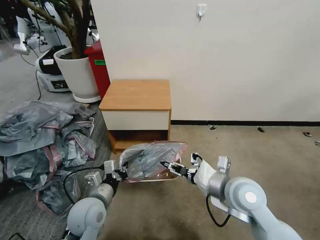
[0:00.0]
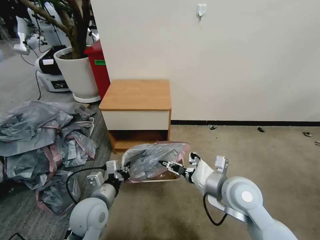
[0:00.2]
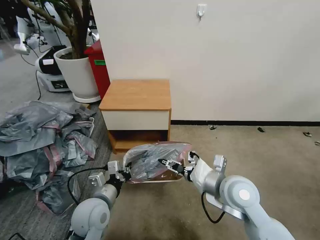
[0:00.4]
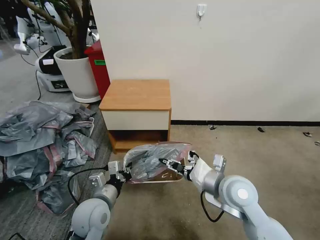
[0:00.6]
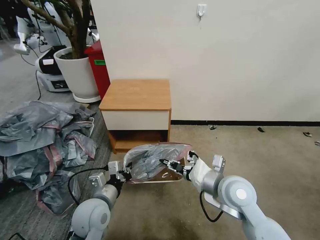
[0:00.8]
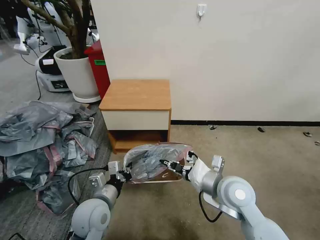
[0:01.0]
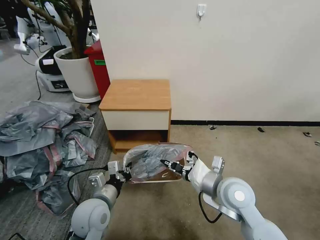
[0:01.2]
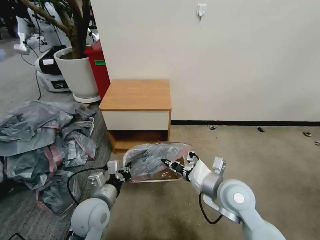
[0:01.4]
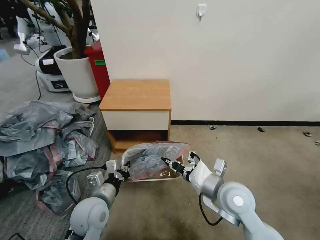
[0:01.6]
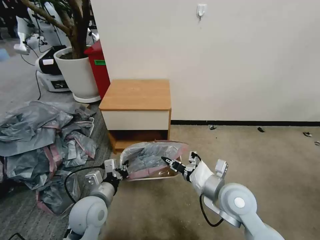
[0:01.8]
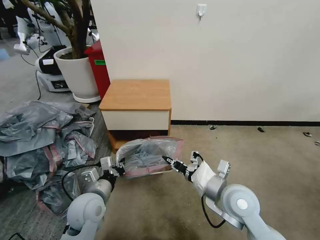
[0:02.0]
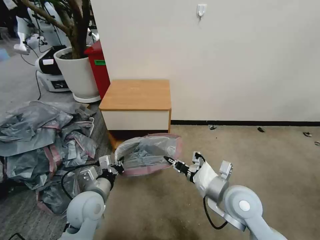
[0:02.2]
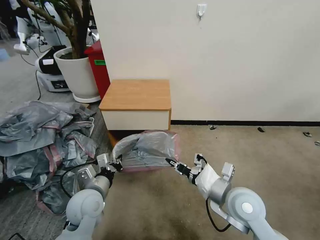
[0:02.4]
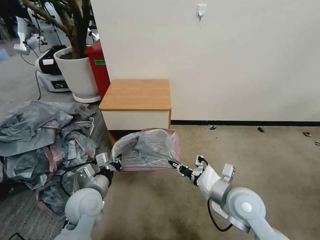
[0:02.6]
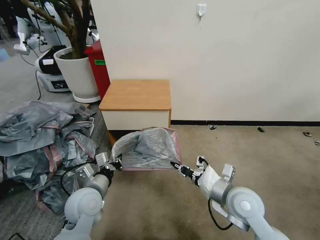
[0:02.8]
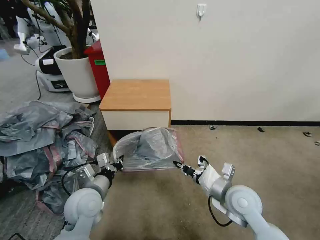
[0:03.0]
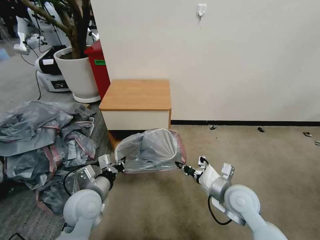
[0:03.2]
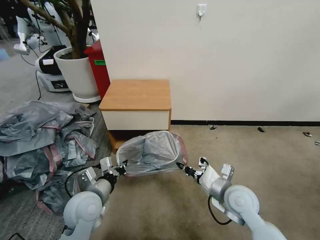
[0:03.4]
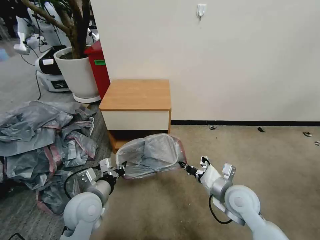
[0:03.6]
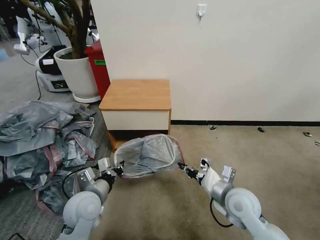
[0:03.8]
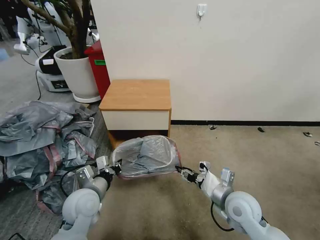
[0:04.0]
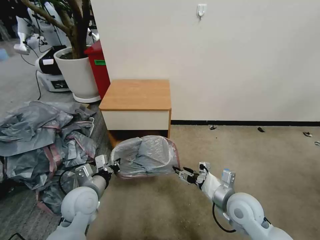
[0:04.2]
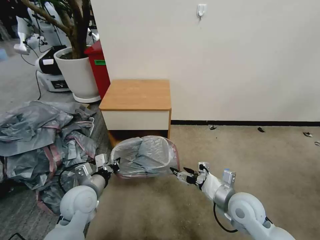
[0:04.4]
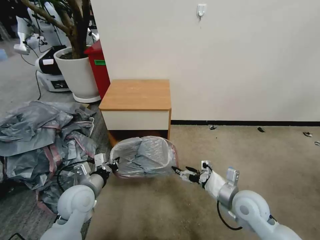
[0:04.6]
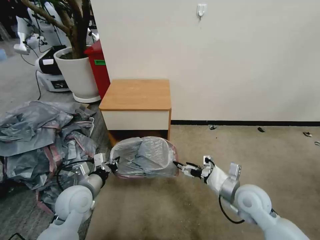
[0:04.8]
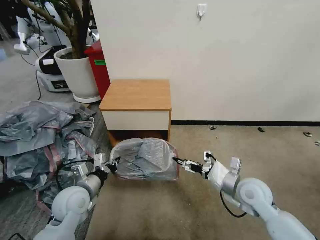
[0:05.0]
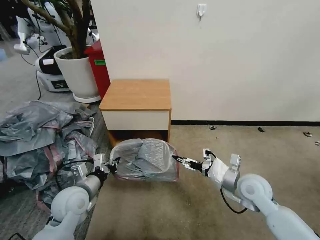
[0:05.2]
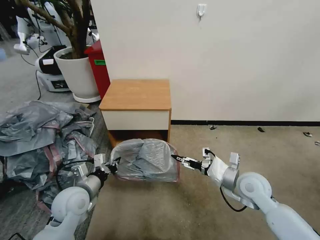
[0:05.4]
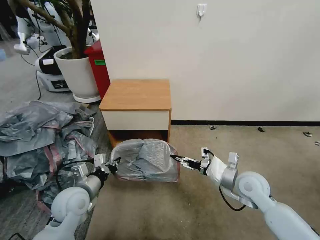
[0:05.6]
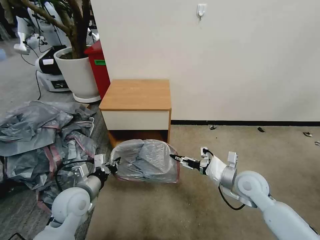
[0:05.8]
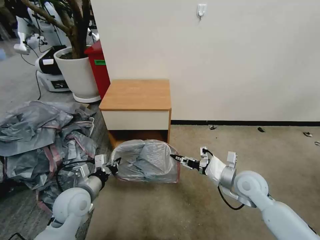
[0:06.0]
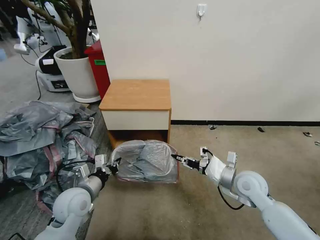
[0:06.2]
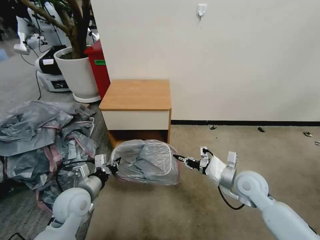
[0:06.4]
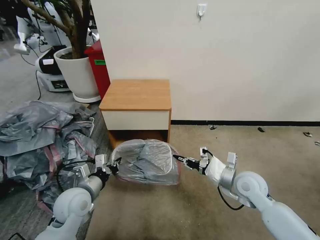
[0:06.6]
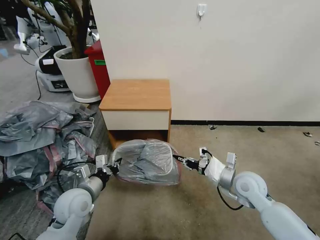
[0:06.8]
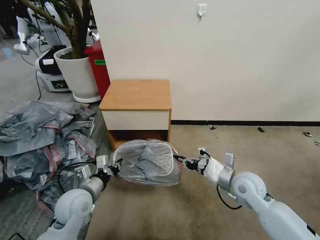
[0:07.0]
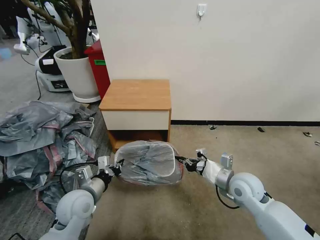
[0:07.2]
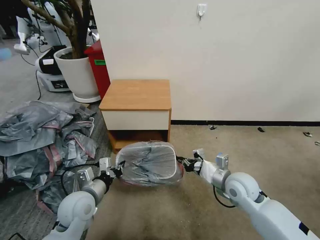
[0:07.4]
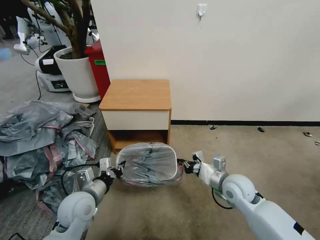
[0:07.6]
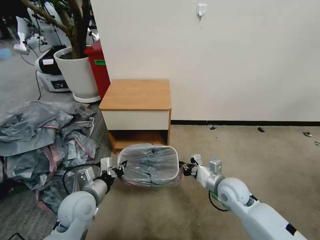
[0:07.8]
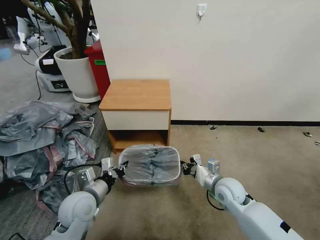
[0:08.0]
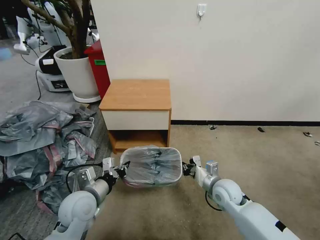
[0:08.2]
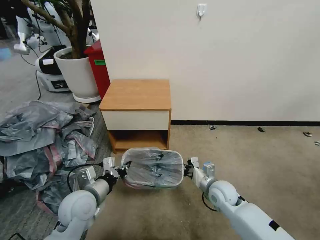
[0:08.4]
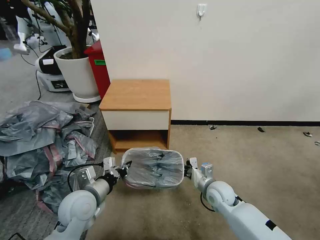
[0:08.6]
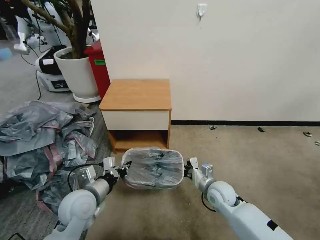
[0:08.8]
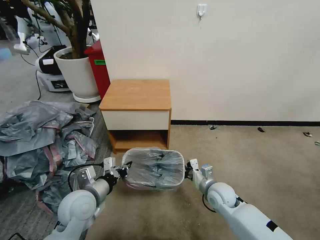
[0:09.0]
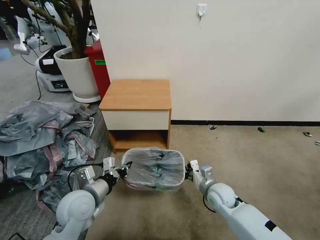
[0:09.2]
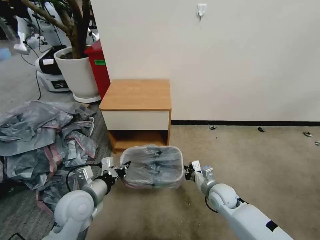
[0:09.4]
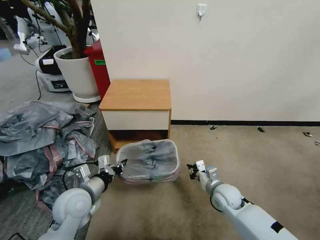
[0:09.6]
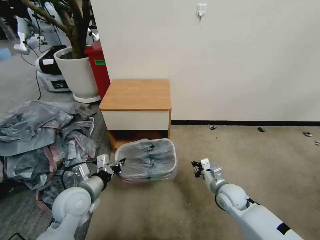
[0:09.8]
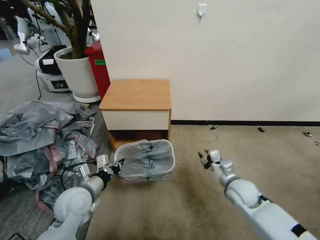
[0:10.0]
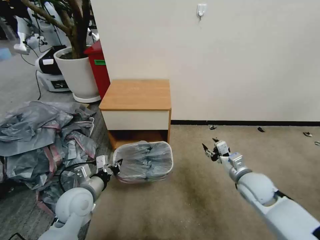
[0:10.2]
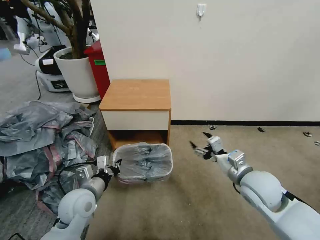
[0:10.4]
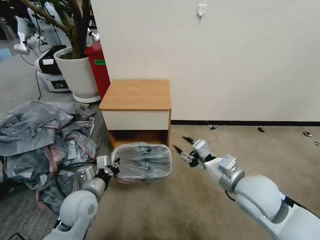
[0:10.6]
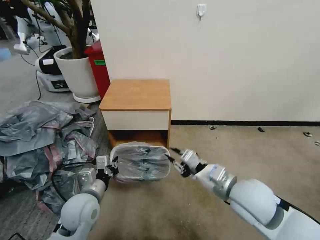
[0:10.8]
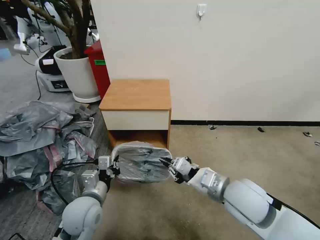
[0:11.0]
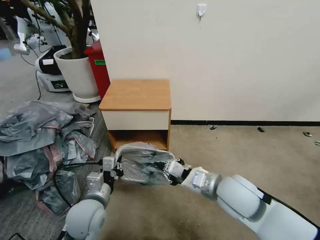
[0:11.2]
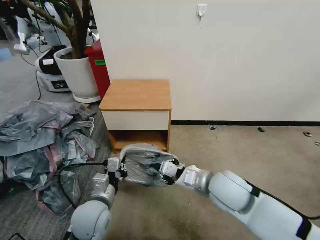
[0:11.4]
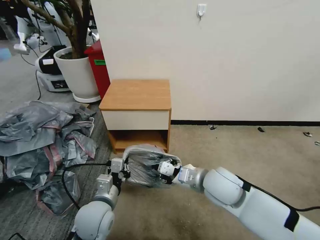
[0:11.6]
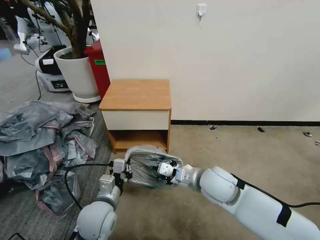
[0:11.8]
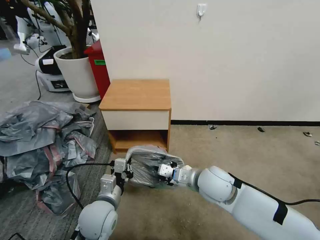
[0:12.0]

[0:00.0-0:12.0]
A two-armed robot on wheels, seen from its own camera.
Task of the whole recording: Pick up the garbage bag from the table and place it over the trash can.
0:00.0 to 0:01.6: The right gripper closes.
0:01.6 to 0:03.0: The grippers stay close to where they were, moving slightly.
0:03.0 to 0:04.4: The right gripper opens.
0:04.4 to 0:06.0: The right gripper goes some 5 cm forward, and closes.
0:06.0 to 0:07.6: The right gripper closes.
0:07.6 to 0:09.0: The right gripper moves downward, approximately 10 cm.
0:09.0 to 0:10.4: The right gripper moves upward, some 15 cm, and opens its fingers.
0:10.4 to 0:12.0: The left gripper goes approximately 5 cm to the right. Meanwhile the right gripper shifts about 15 cm to the left, and closes.

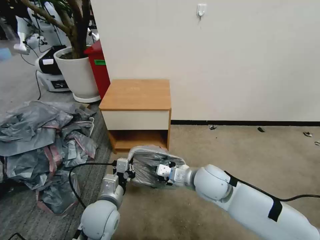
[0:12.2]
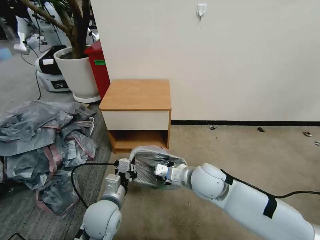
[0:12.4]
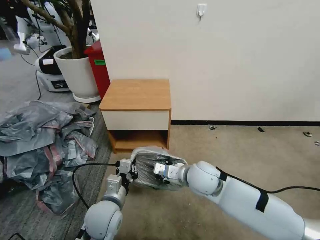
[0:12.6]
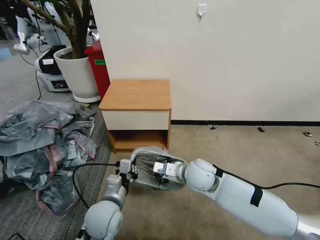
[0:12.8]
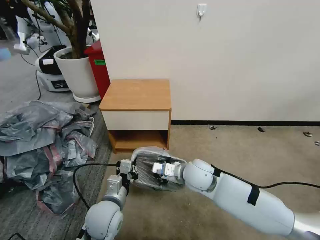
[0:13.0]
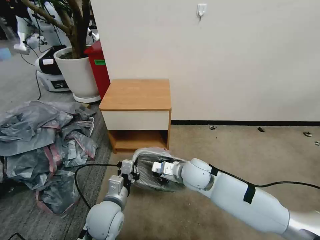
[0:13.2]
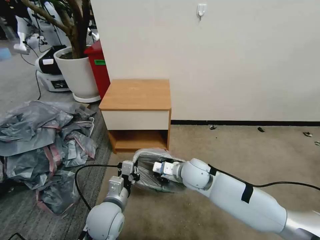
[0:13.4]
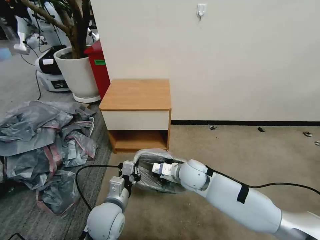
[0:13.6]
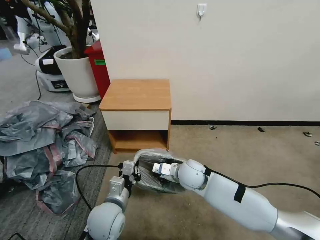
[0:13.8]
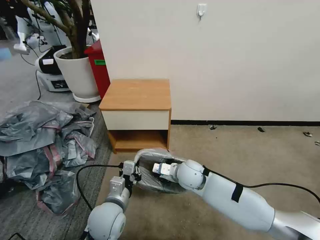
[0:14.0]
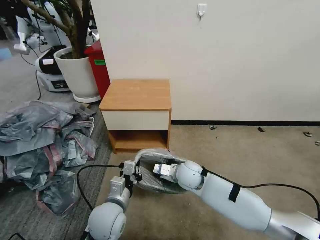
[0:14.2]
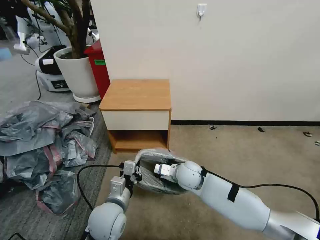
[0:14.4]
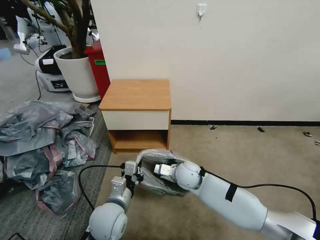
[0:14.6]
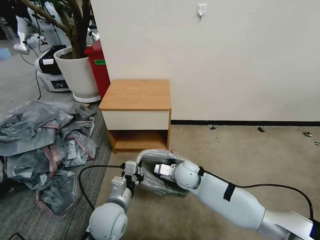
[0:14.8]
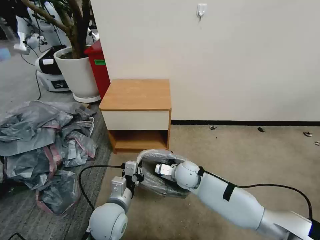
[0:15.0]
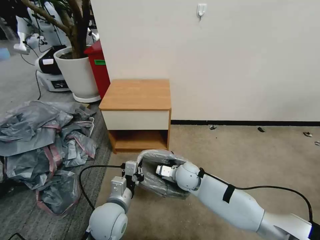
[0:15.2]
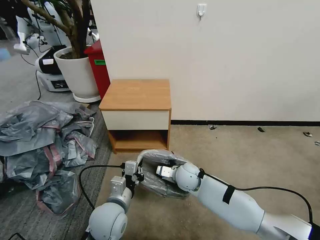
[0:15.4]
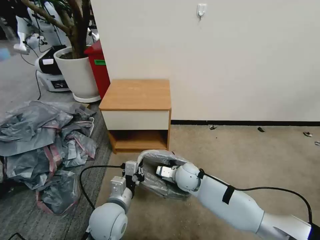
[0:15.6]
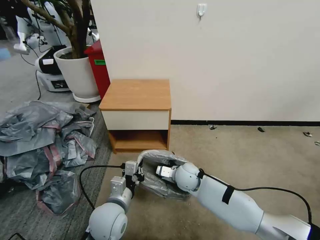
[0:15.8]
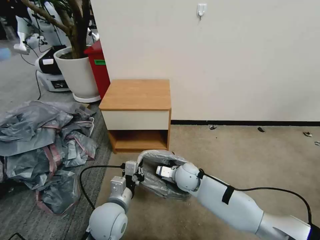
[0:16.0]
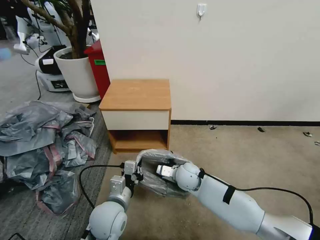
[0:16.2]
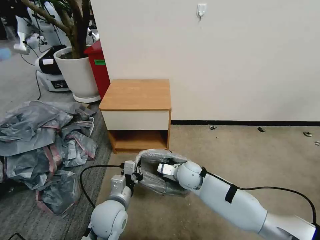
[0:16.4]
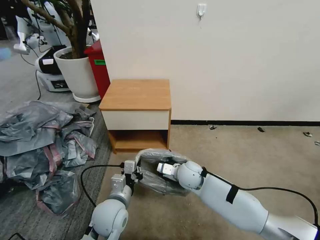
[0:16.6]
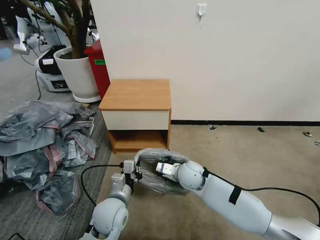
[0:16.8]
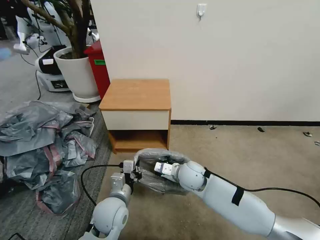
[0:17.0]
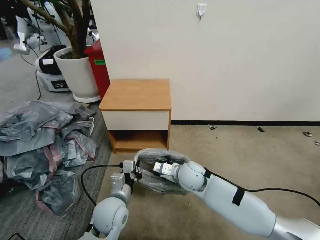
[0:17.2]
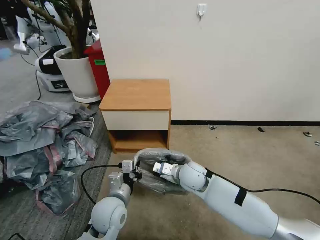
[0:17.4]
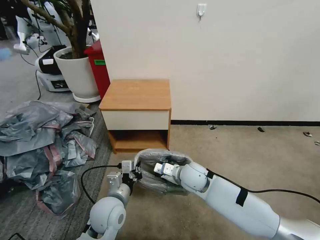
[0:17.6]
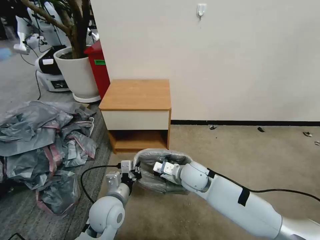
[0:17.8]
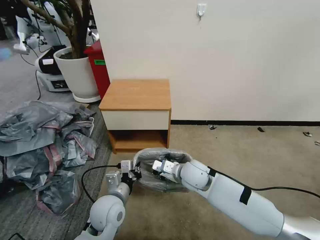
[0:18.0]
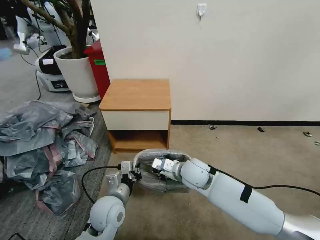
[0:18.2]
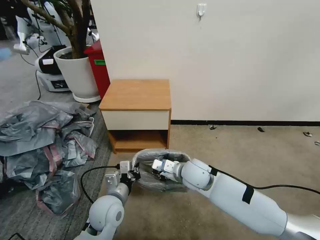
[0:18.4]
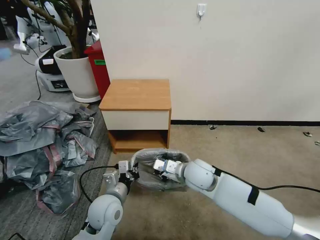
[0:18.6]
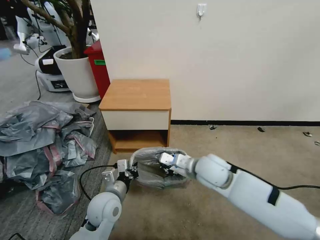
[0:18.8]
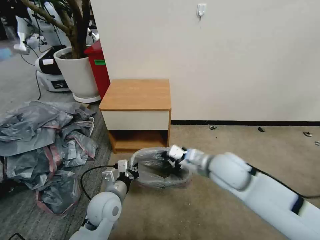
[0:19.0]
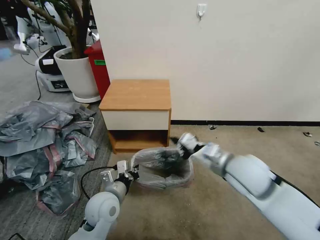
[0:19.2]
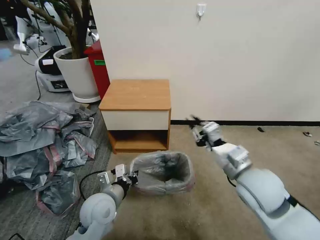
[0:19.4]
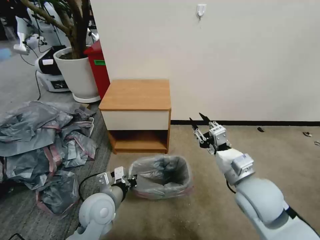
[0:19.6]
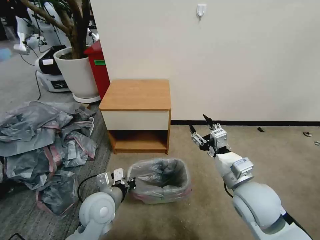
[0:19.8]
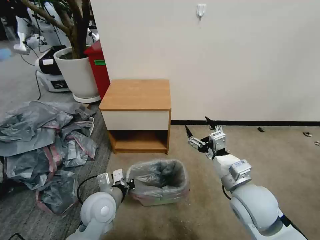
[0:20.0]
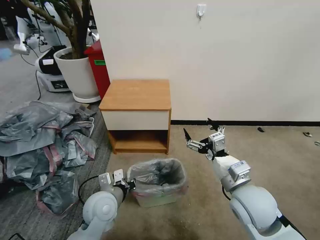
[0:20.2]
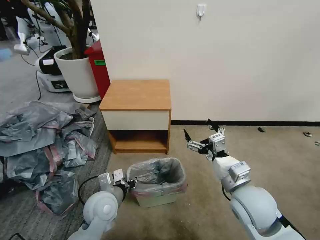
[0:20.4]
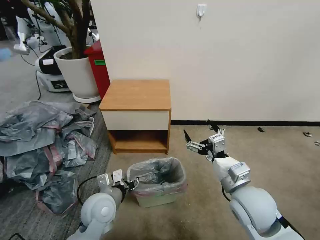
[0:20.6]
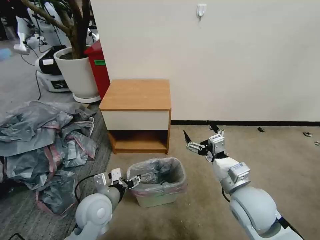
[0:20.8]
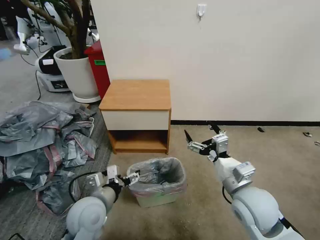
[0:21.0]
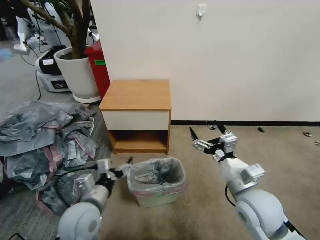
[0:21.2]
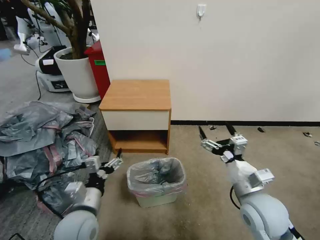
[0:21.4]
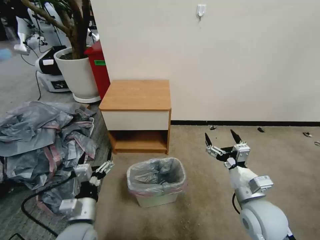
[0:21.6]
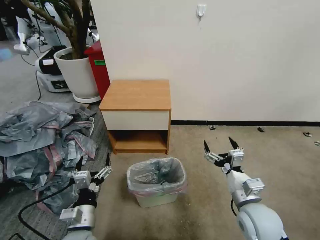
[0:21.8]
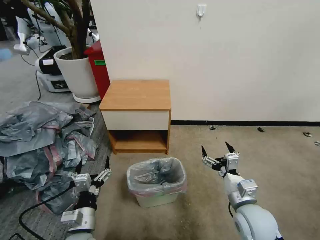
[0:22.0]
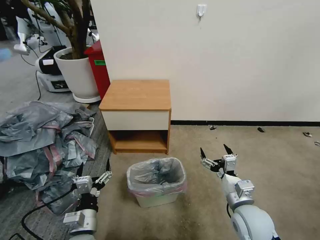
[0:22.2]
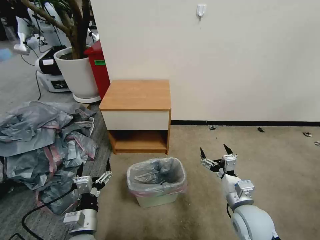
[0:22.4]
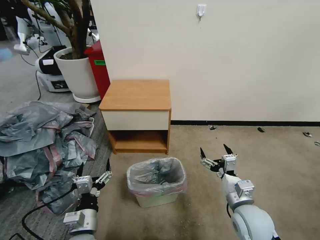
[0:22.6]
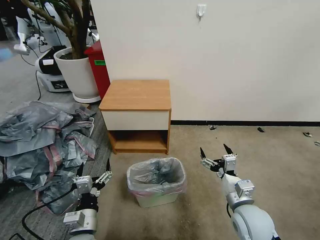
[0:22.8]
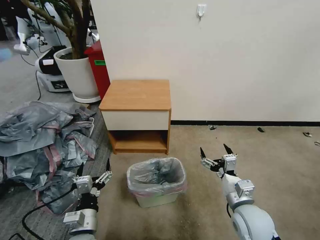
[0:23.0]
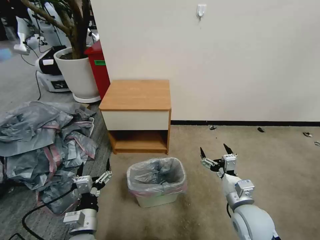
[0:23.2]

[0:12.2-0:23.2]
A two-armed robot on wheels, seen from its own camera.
Task of the whole recording: Pick up the garbage bag from the table and place it over the trash can.
0:12.2 to 0:13.8: The right gripper moves downward and forward, roughly 10 cm.
0:13.8 to 0:15.4: The right gripper heads downward, covering some 5 cm.
0:15.4 to 0:17.0: There are only small adjustments of the grippers.
0:17.0 to 0:18.4: The grippers make only small movements.
0:18.4 to 0:20.0: The right gripper heads backward, to the right and upward, covering approximately 20 cm, and opens up.
0:20.0 to 0:21.6: The right gripper moves some 5 cm; the left gripper travels backward by some 10 cm, and opens up.
0:21.6 to 0:23.2: The grippers make only small movements.
